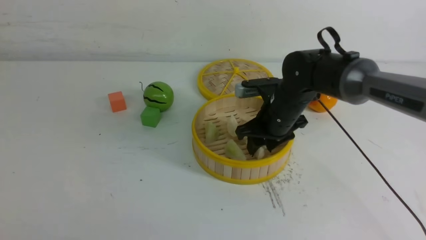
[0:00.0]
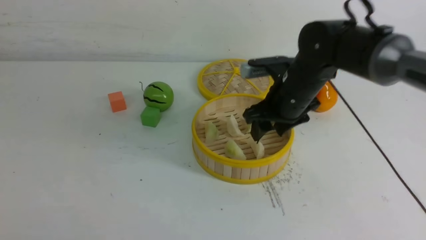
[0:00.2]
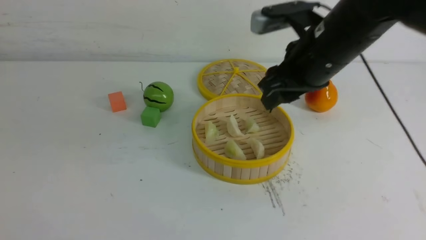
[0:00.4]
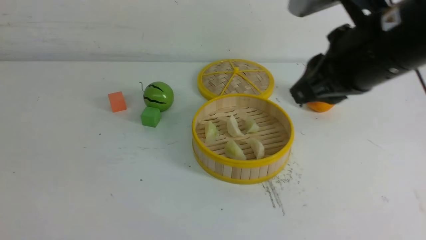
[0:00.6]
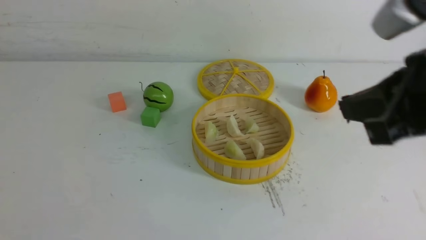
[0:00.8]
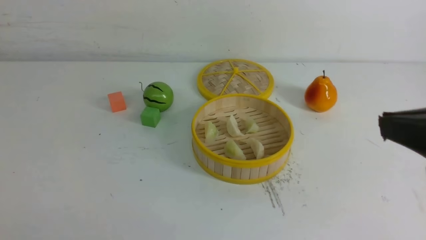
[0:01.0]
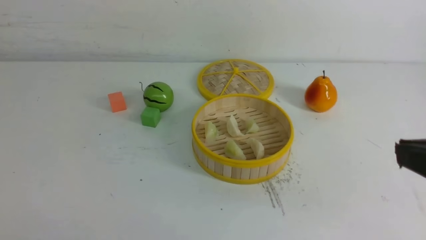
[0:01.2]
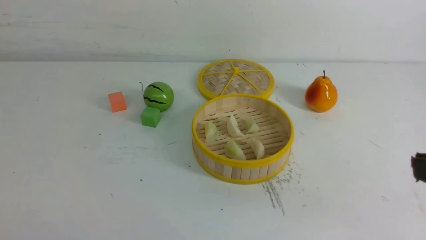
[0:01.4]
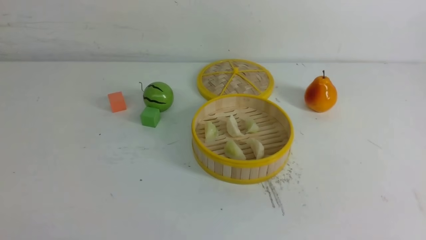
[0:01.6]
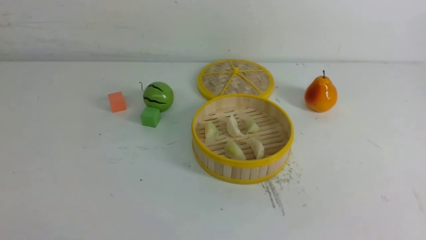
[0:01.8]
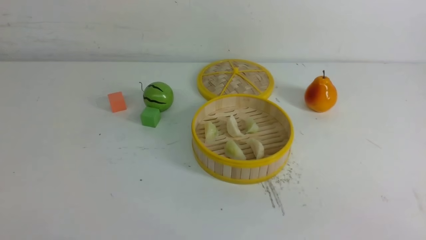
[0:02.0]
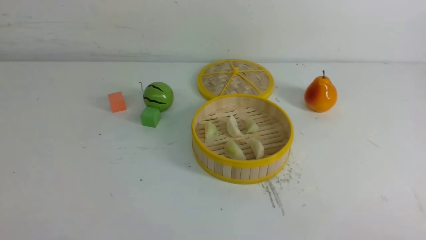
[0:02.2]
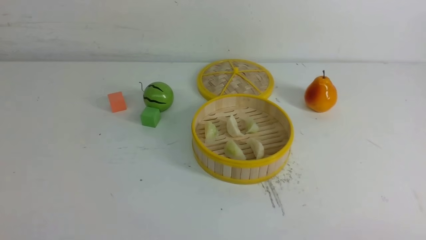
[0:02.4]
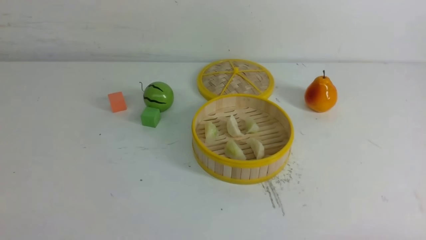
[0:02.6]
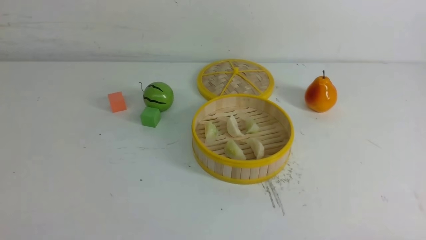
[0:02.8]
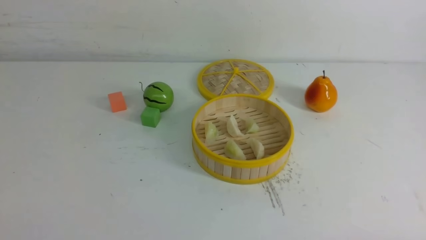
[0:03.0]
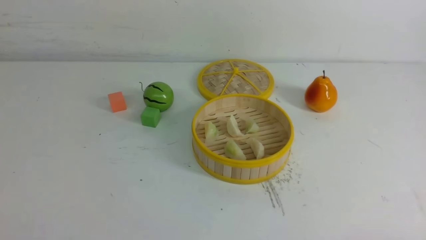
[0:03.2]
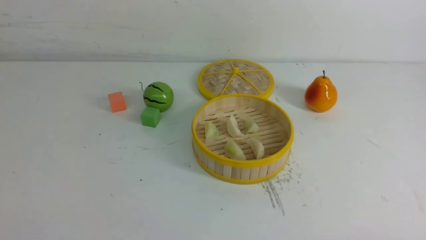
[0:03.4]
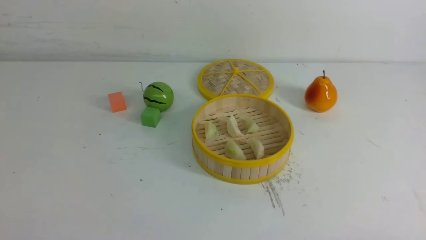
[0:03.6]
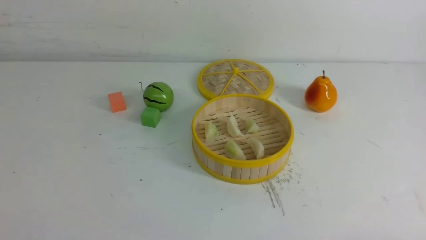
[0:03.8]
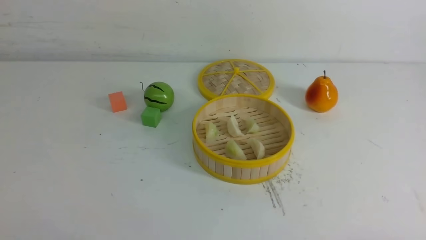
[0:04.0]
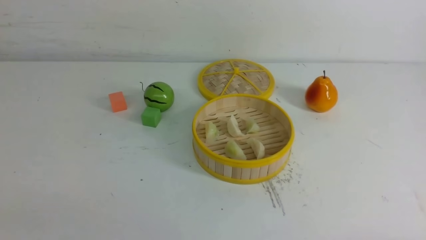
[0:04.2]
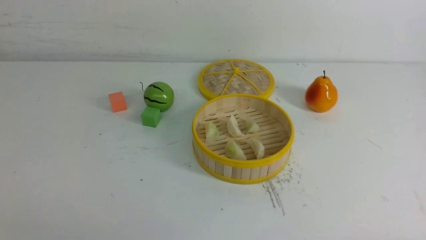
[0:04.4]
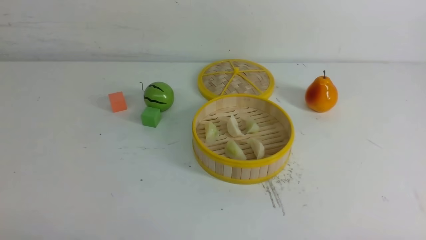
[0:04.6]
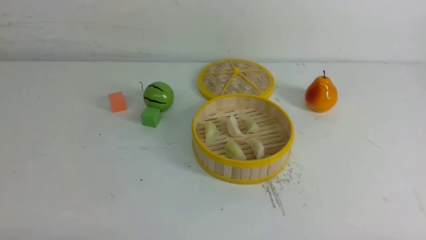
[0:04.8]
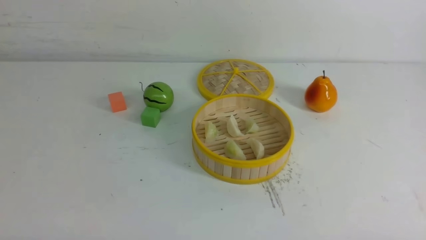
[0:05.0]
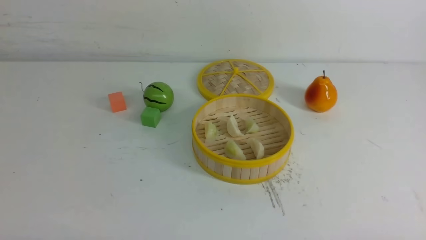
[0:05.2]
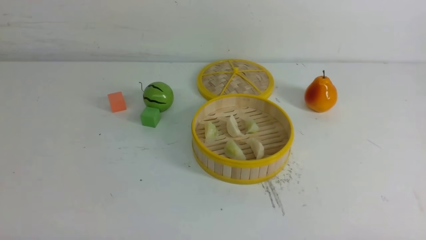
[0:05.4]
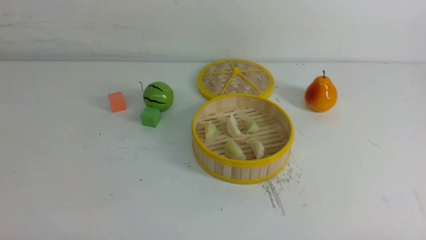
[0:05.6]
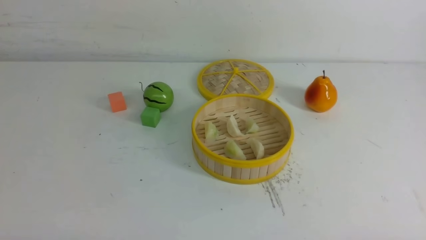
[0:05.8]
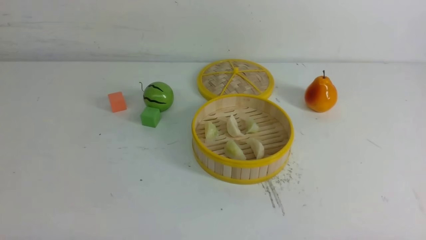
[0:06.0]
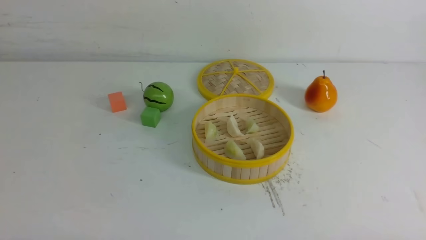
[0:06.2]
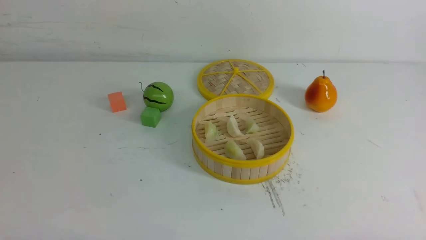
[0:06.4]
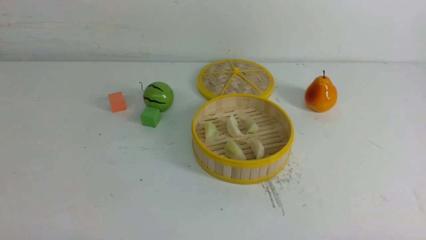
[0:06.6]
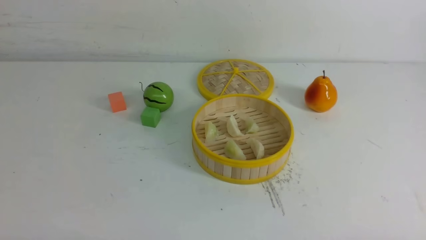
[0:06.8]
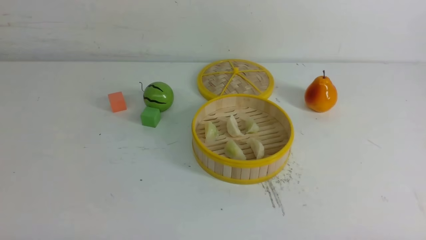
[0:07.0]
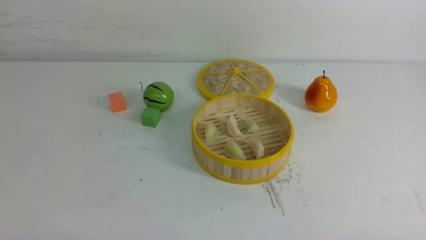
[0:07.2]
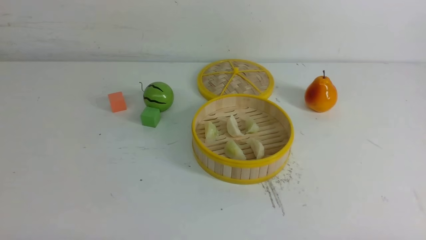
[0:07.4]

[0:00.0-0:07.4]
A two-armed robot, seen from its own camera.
Task of the whole recording: put the dumplings into the steamer on the white table.
0:00.0 to 0:01.4: The right gripper moves backward, upward and to the right, roughly 40 cm, and closes up.
0:06.0 to 0:07.4: The two grippers keep their place.

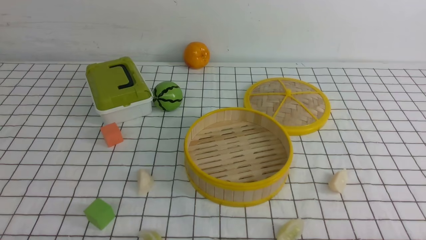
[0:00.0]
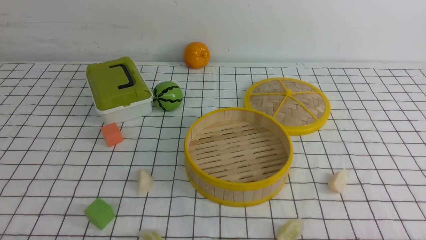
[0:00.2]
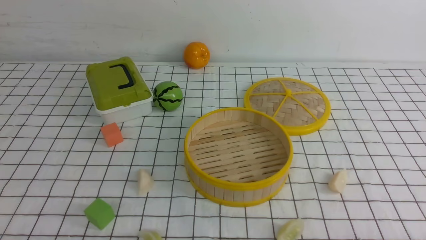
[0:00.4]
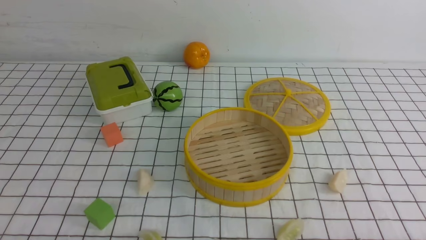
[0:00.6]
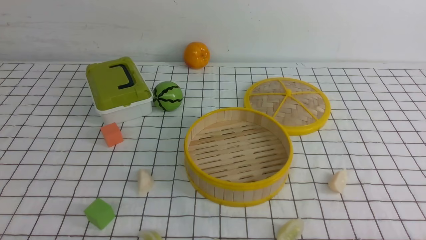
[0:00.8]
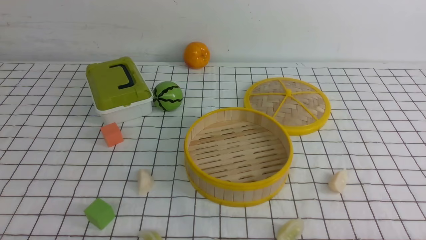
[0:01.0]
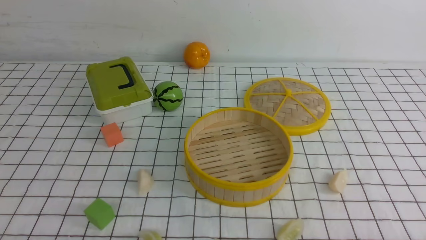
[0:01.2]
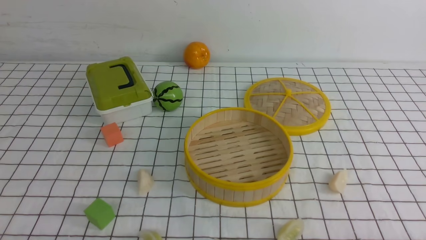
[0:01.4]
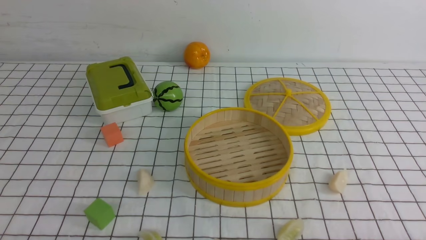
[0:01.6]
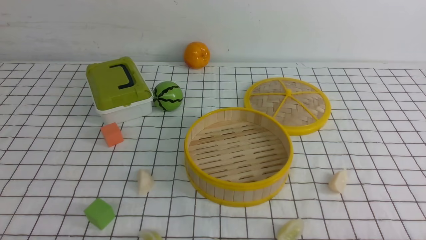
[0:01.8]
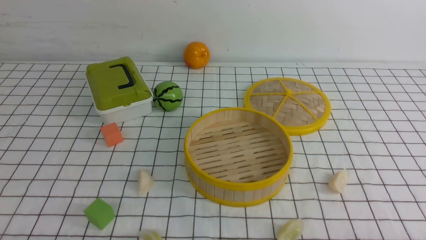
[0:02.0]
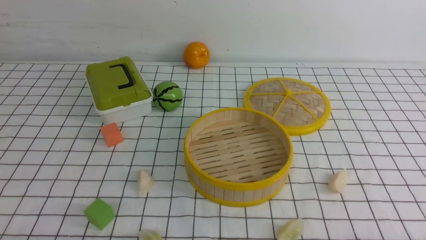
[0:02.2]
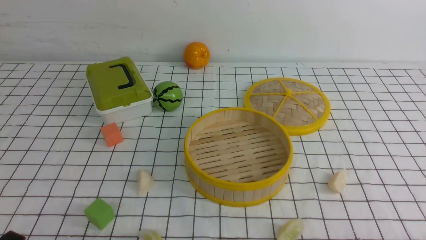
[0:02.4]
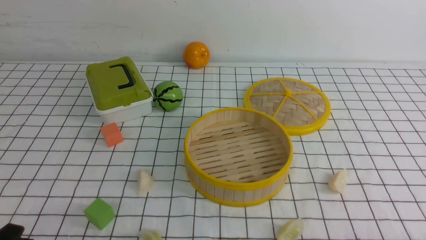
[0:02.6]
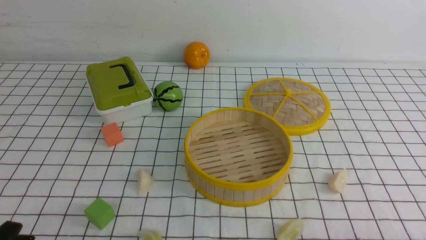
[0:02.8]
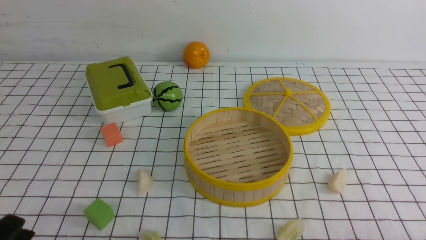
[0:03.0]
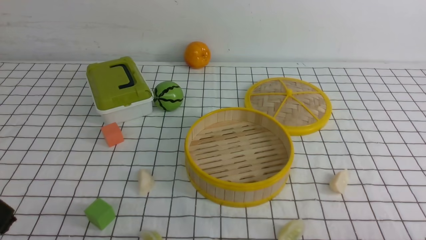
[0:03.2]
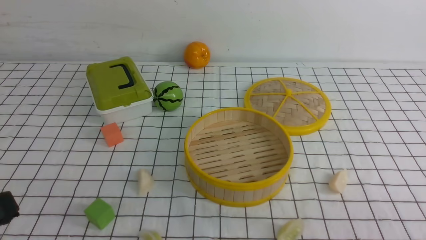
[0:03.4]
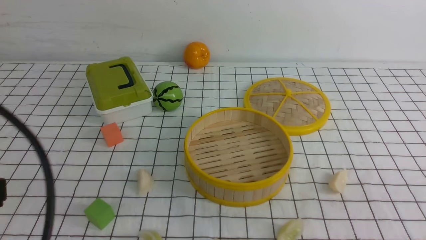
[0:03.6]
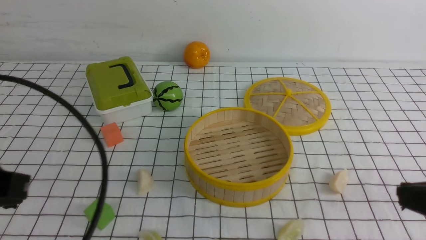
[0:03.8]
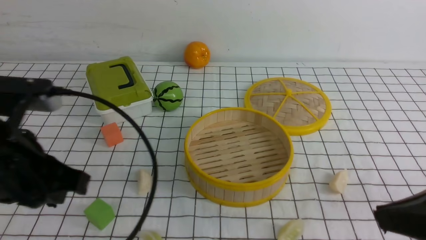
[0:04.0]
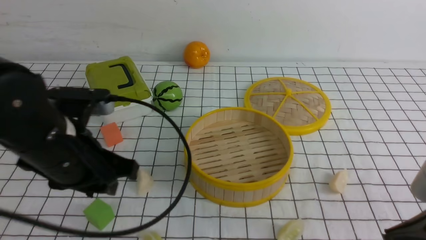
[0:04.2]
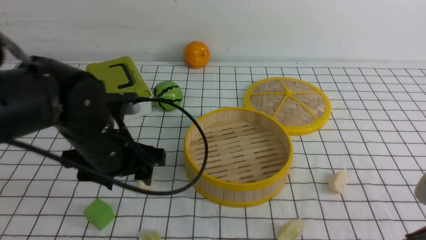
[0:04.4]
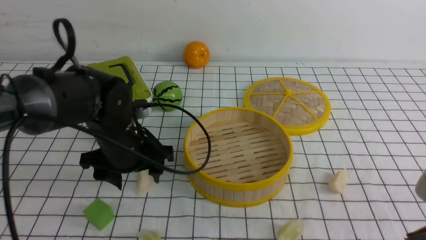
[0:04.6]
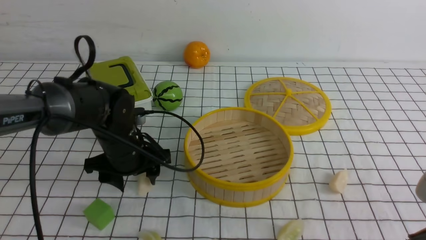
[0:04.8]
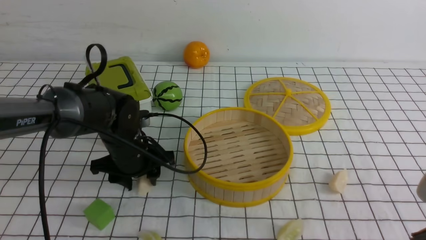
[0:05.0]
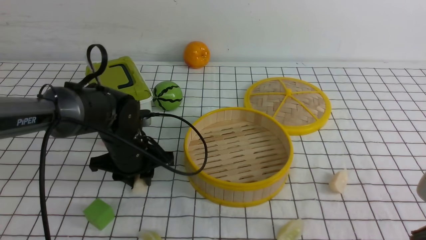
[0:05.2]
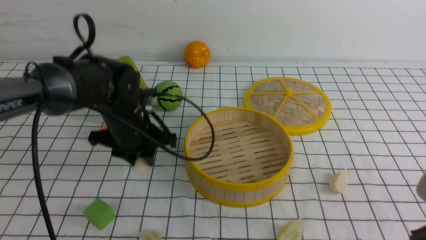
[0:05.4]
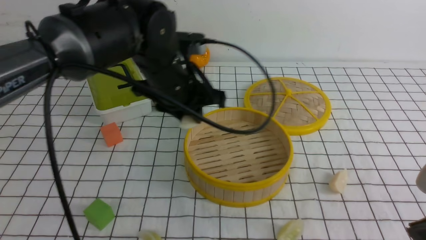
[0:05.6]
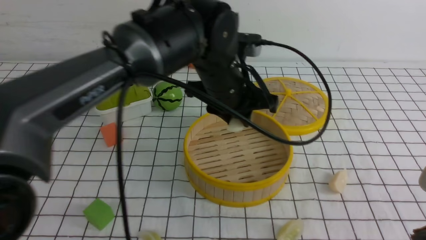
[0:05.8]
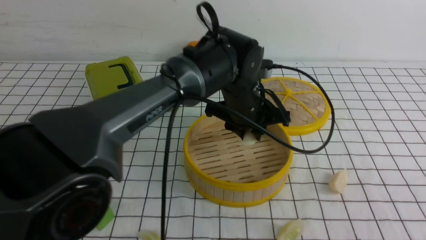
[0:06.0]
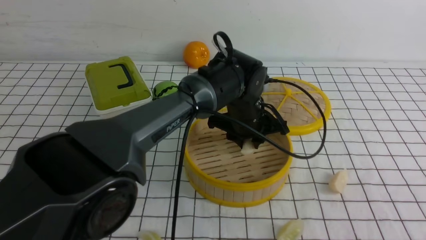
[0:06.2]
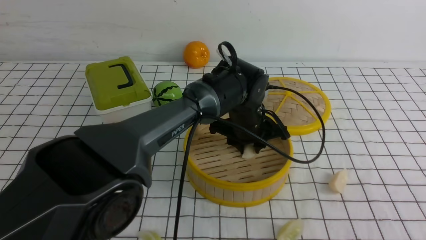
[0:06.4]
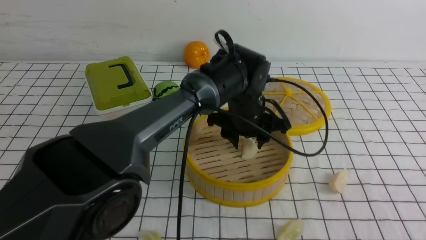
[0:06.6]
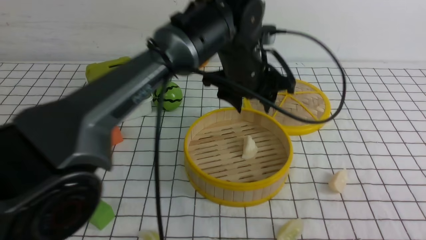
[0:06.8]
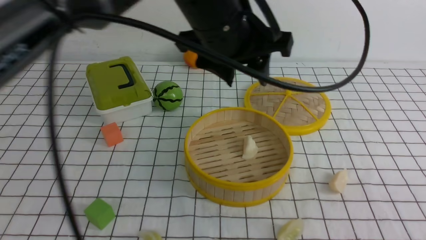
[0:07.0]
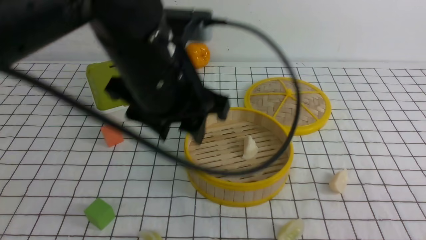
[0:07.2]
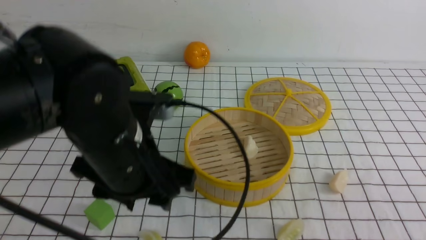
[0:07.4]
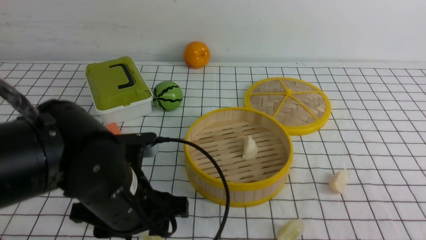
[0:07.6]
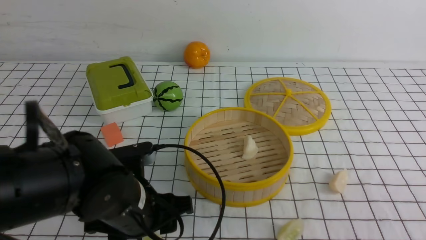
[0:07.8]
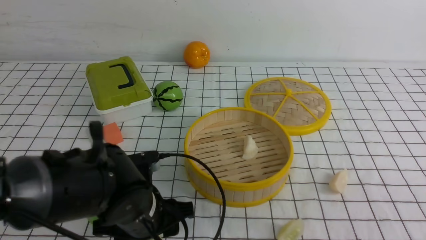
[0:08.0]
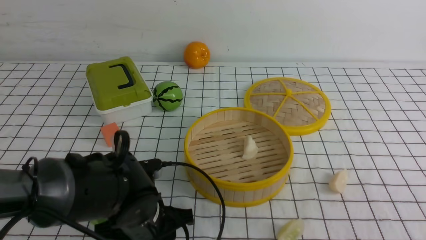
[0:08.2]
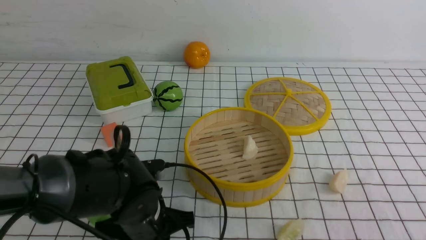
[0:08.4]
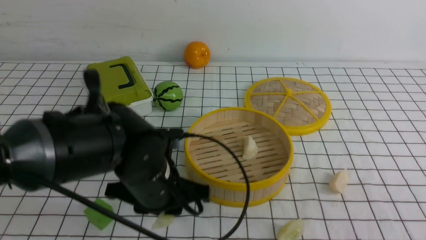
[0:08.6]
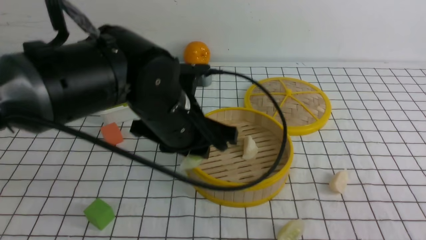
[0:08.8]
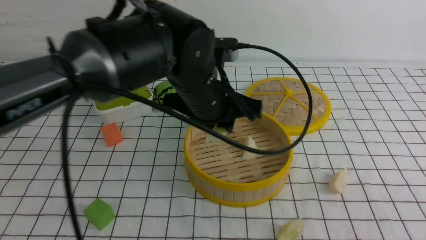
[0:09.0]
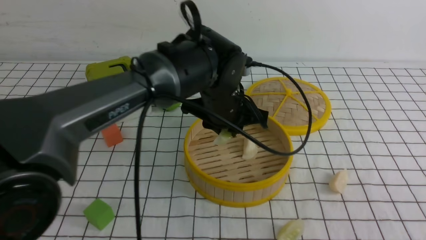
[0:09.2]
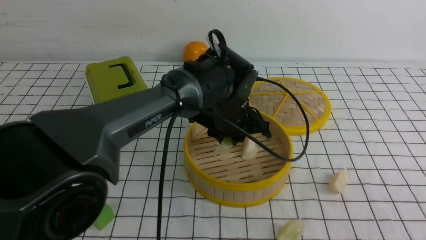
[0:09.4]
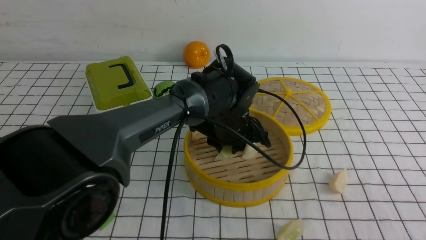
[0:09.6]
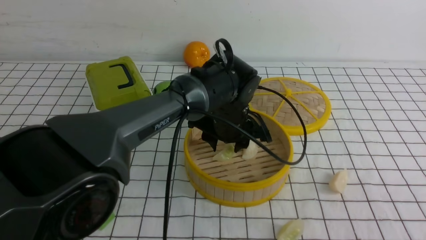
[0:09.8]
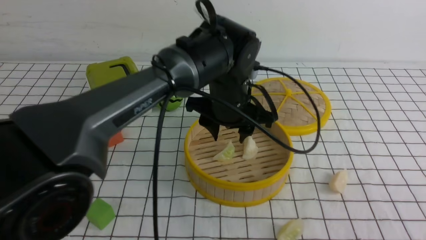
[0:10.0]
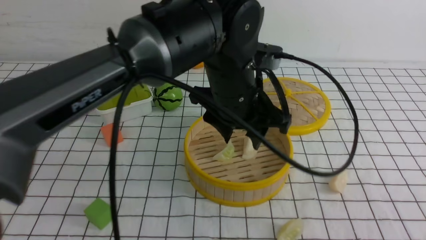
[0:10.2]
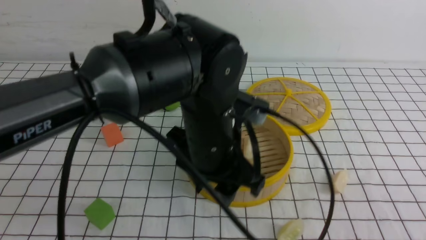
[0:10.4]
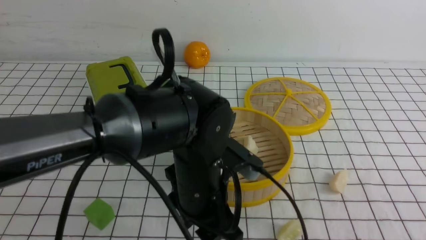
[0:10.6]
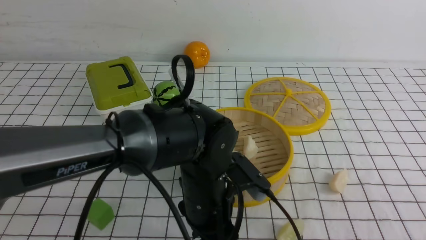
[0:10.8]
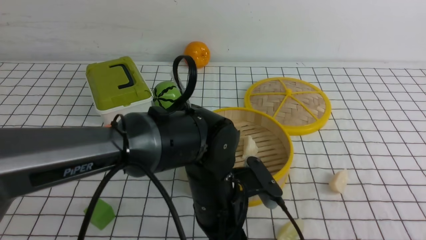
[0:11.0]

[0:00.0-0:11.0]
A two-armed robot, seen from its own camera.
Task of the whole recording: put the dumplings into the steamer on the table with the white tablecloth.
Step, 0:00.0 to 0:05.2: use the left arm to grab a dumpling.
Step, 0:05.4 to 0:06.6: use the left arm to put the dumpling into the steamer.
Step, 0:06.8 to 0:08.2: use the left arm to grab a dumpling.
Step, 0:08.4 to 0:10.0: use the left arm to put the dumpling into the steamer.
0:00.0 to 0:01.6: The two grippers keep their place.
0:03.2 to 0:04.8: The right gripper is displaced upward and forward by roughly 10 cm. The left gripper heads forward, covering approximately 30 cm, and opens.
0:04.8 to 0:06.2: The left gripper shifts some 20 cm to the right, and closes up.
0:06.2 to 0:07.8: The left gripper goes about 25 cm backward and to the left, and opens.
0:07.8 to 0:09.4: The left gripper moves forward and to the right, about 20 cm, and closes its fingers.
0:09.4 to 0:11.0: The left gripper moves backward, about 15 cm, and opens up.
